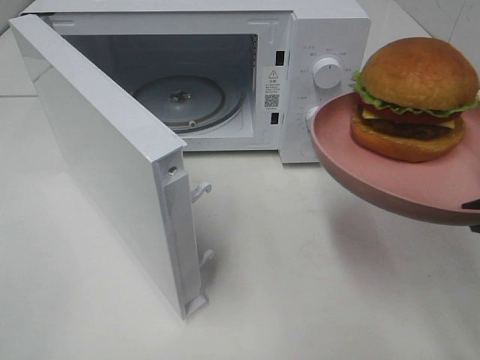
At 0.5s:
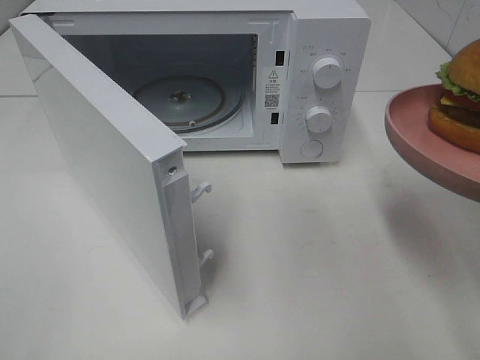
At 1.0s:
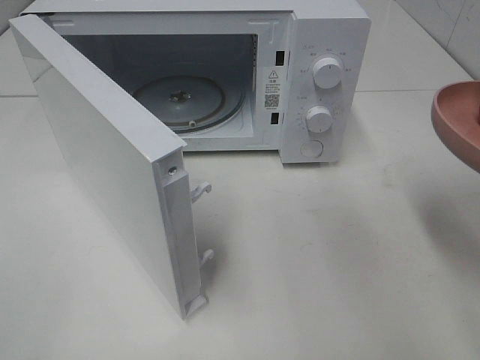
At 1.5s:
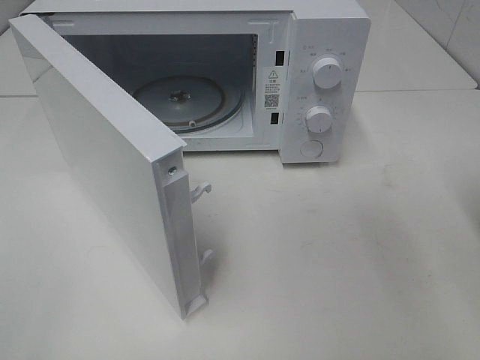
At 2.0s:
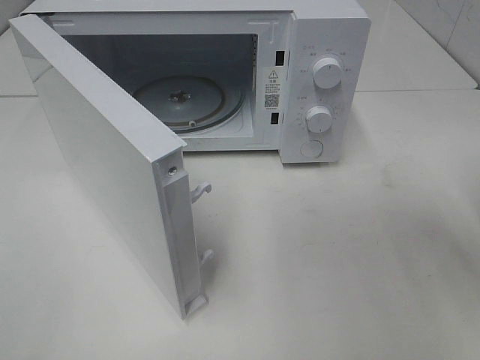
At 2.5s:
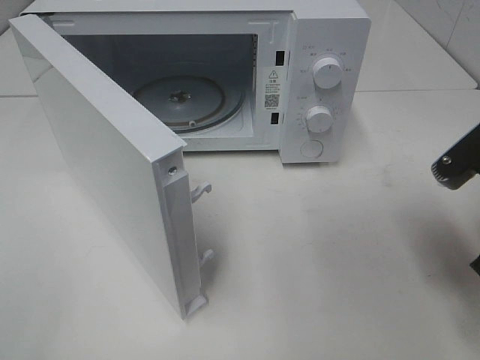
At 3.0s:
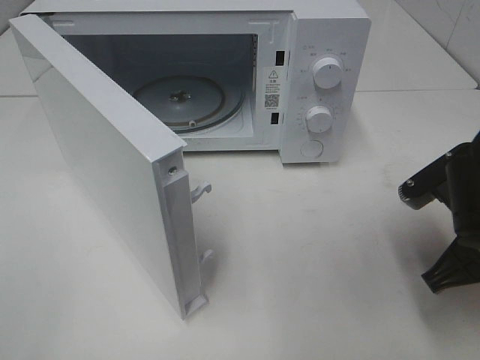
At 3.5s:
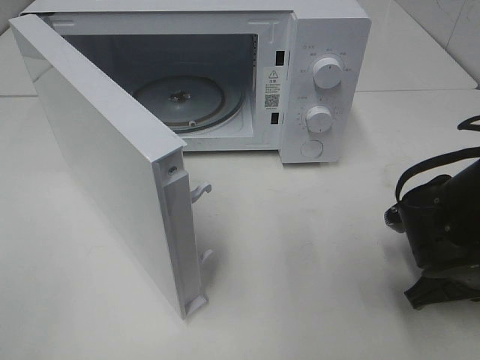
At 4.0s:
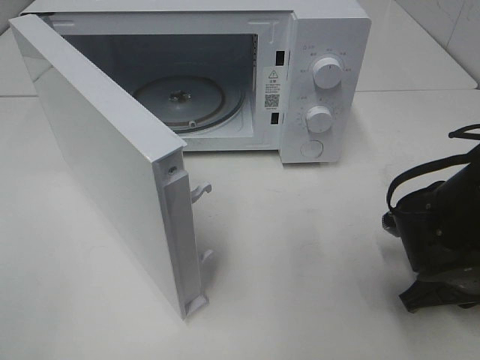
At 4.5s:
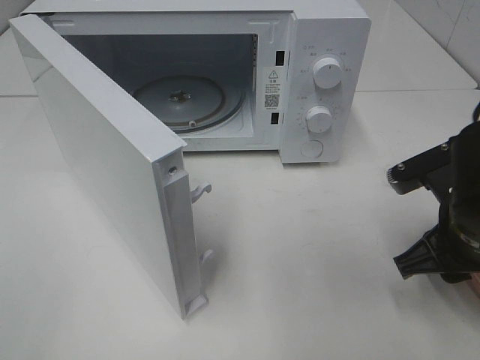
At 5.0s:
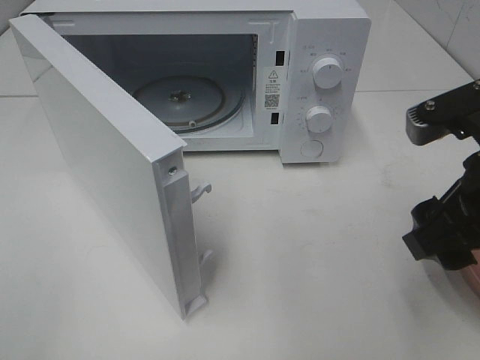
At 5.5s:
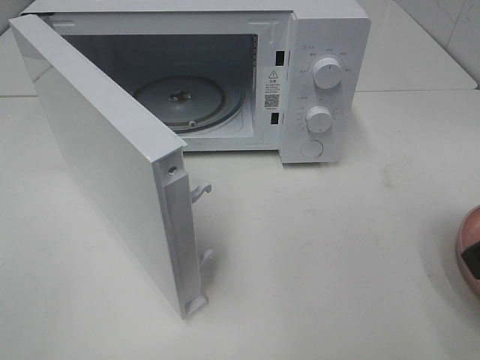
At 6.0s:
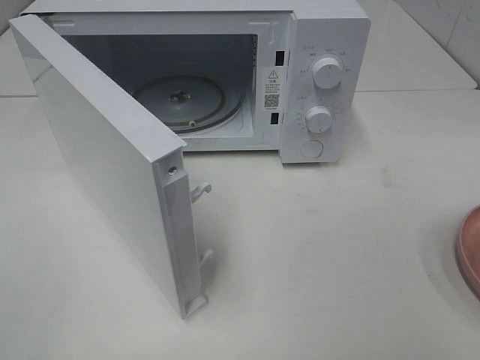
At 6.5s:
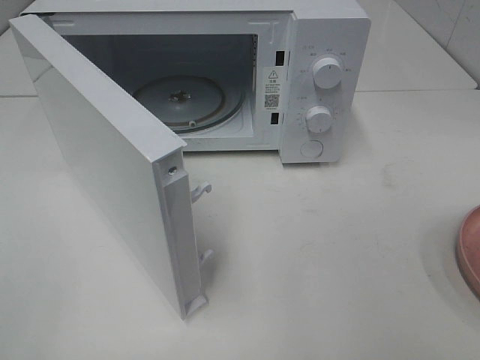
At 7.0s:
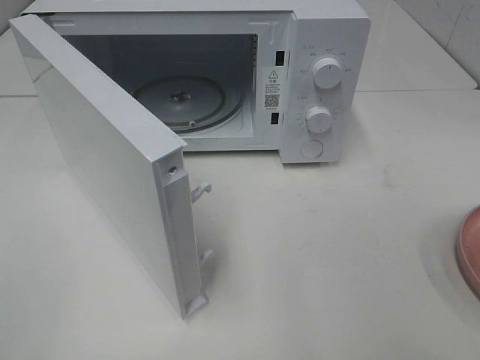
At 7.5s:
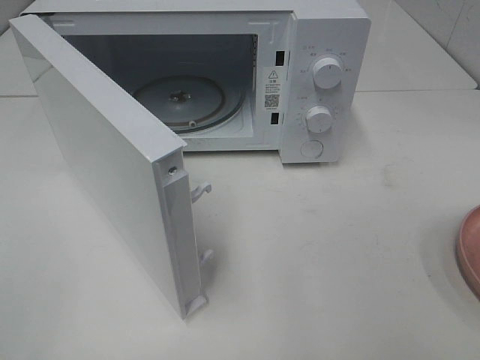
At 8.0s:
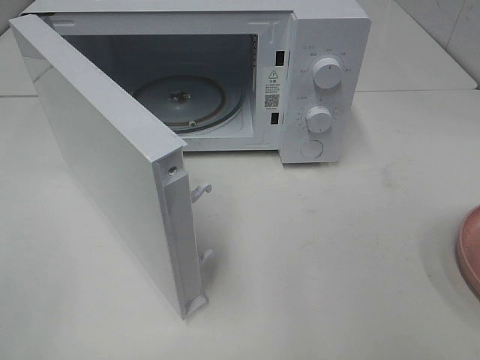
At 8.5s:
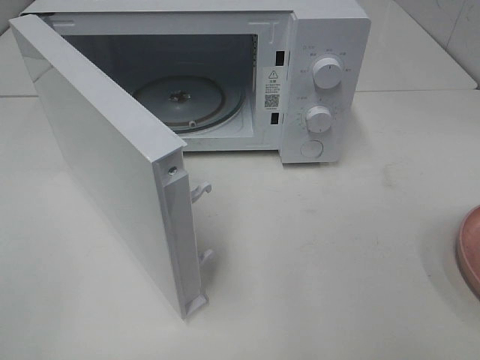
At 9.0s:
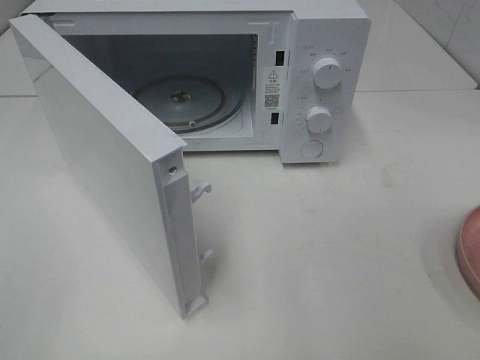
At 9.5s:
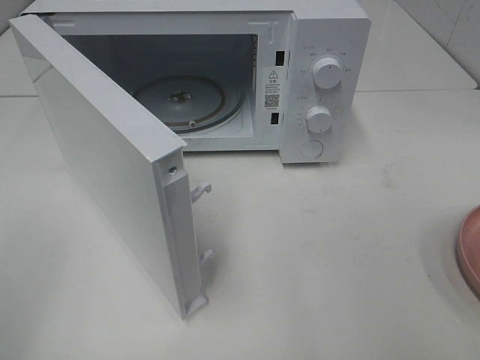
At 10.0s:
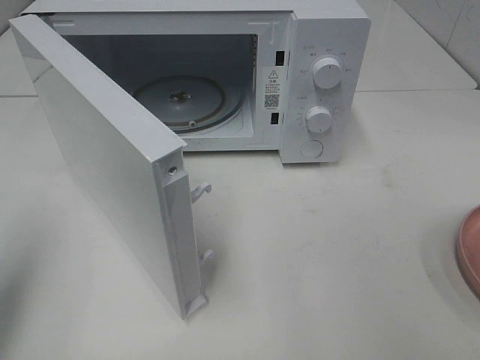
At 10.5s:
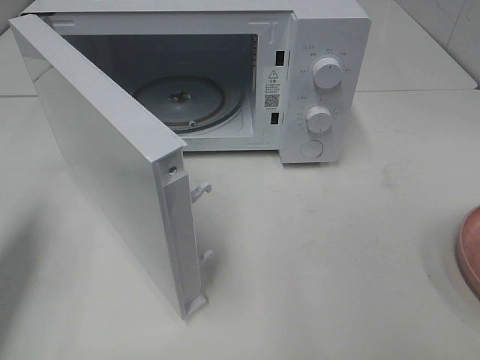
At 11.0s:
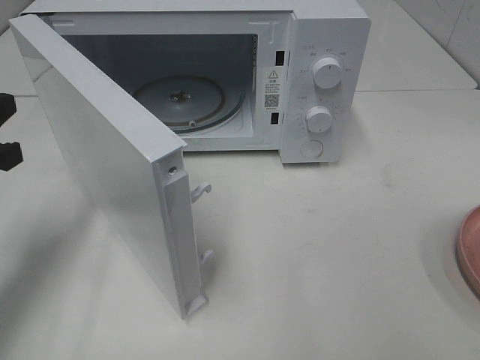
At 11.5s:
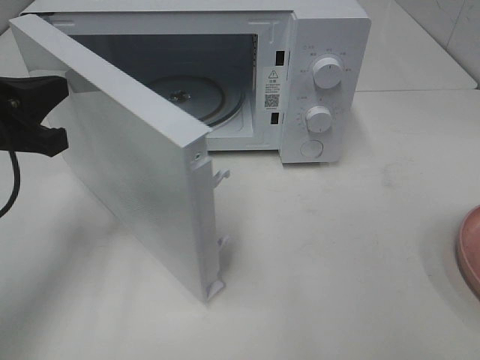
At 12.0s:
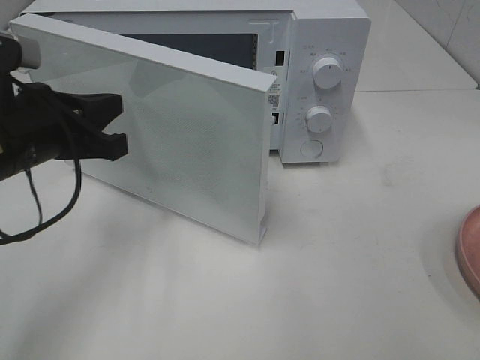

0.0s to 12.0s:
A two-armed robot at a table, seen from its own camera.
Task of the whole recording: Heat the burger.
Step, 0.0s to 4.5s: Right hand: place the plate on the table.
2.0s to 4.0s: The right gripper is displaced downward by roughly 15 cm.
4.0s to 6.0s: The right gripper travels upward and backward by some 25 cm, and opens.
8.0s to 10.0s: The left gripper shifts about 15 cm forward, and closes its fingers.
10.0s to 12.0s: The left gripper travels to the right, forward and downward by some 20 cm.

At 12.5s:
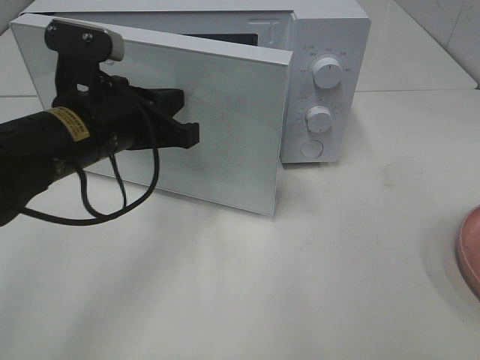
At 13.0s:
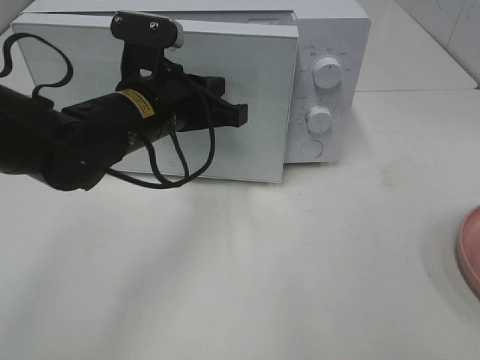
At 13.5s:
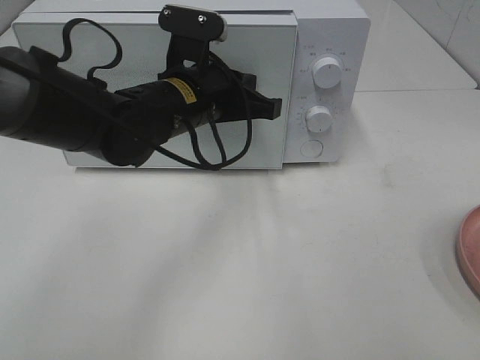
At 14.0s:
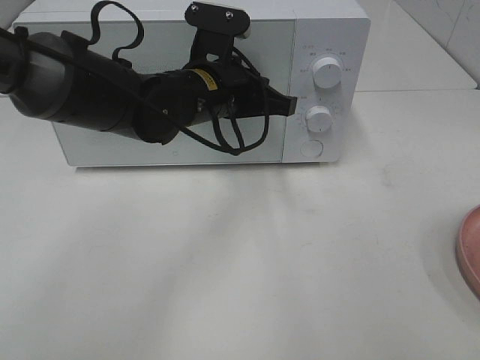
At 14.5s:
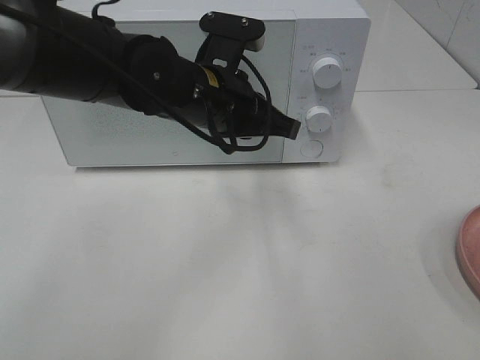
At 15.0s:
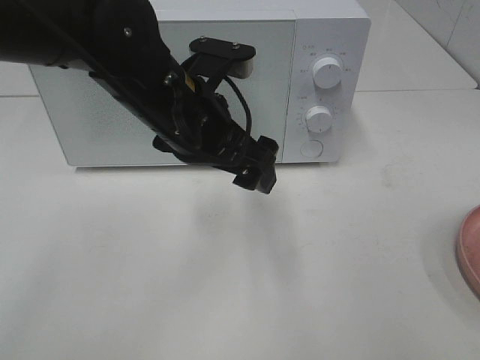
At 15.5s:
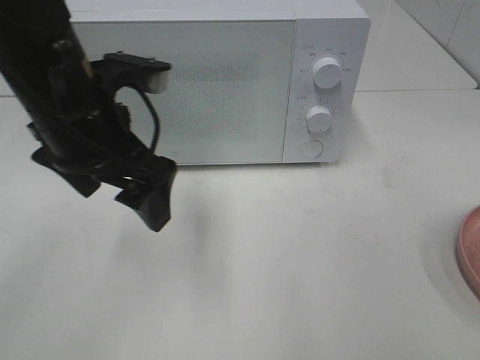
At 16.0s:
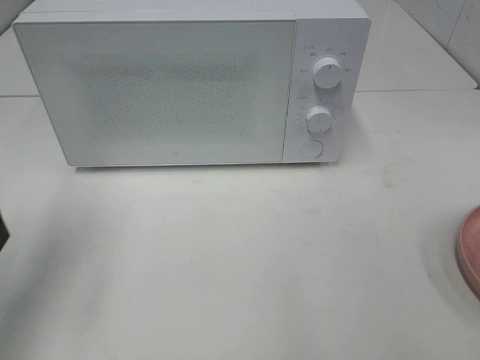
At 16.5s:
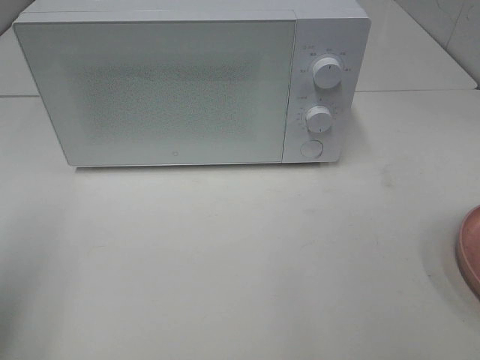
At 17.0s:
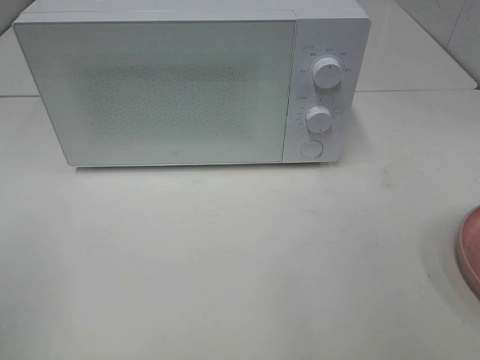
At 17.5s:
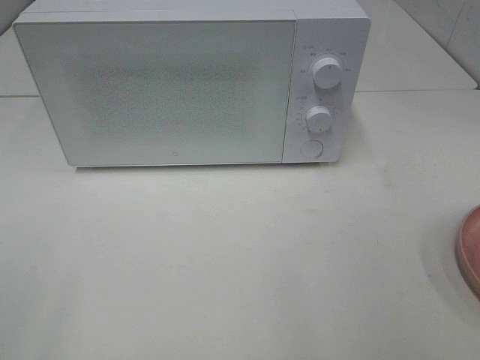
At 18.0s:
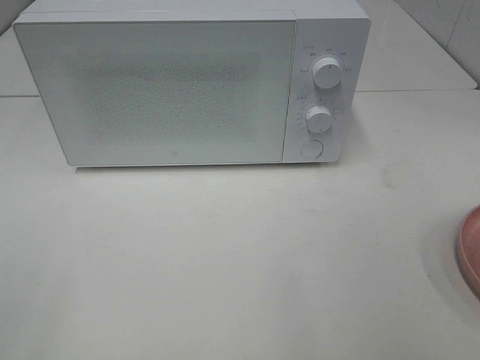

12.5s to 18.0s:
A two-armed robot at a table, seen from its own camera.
Task of the whole recording: Heat the burger.
Step, 12.5s to 14.5s: Left hand: close the microwave door.
12.5s to 14.5s: The left gripper goes about 10 cm to the right.
14.5s to 16.0s: The left gripper goes roughly 30 cm to the left and backward, and opens.
16.0s to 18.0s: The left gripper moves backward, roughly 20 cm.

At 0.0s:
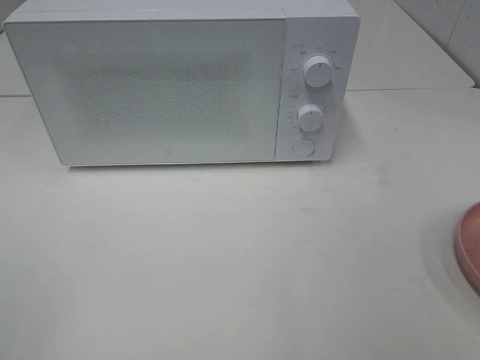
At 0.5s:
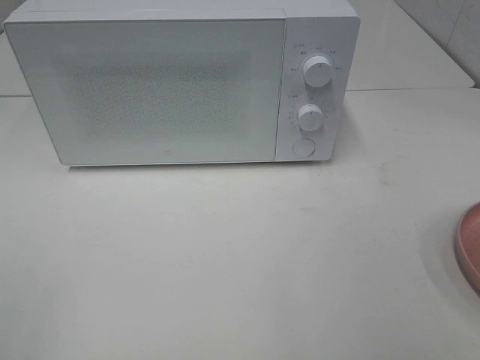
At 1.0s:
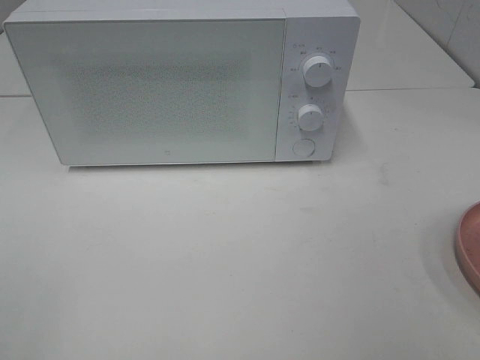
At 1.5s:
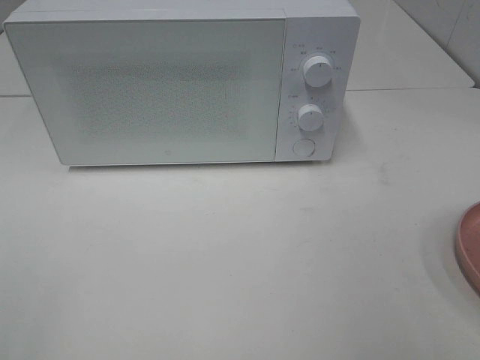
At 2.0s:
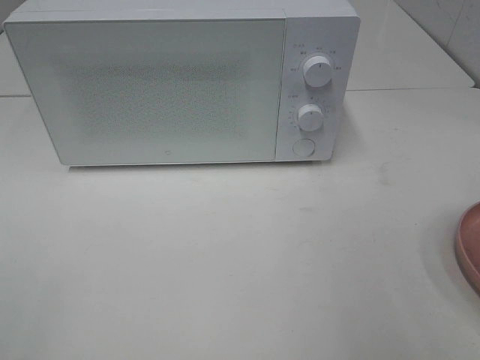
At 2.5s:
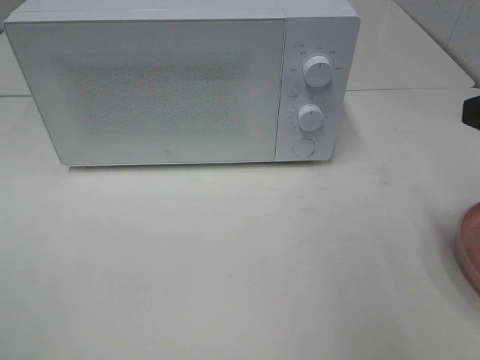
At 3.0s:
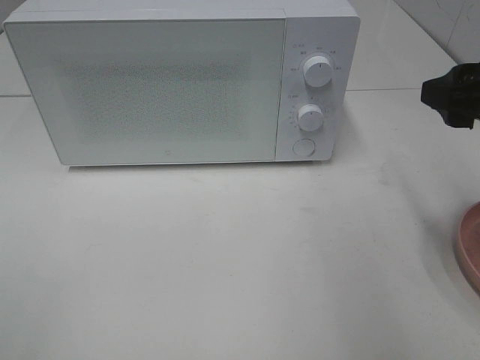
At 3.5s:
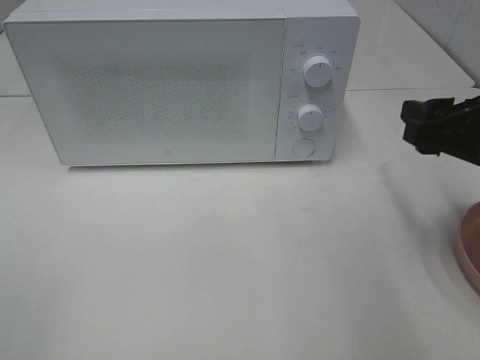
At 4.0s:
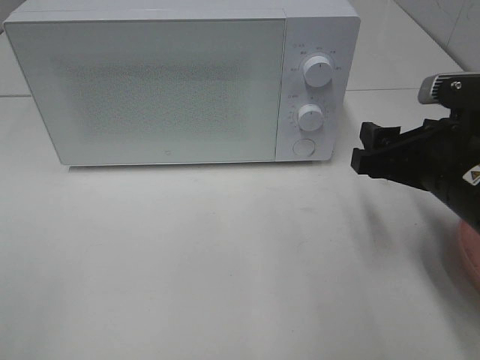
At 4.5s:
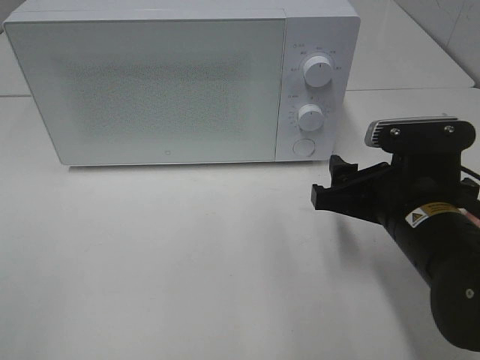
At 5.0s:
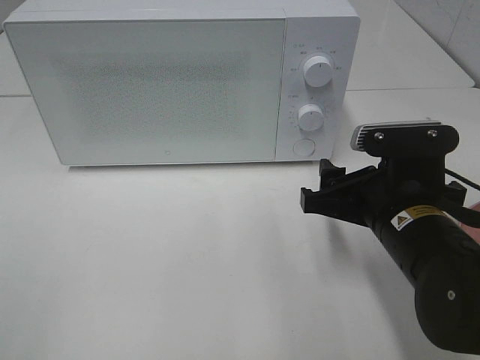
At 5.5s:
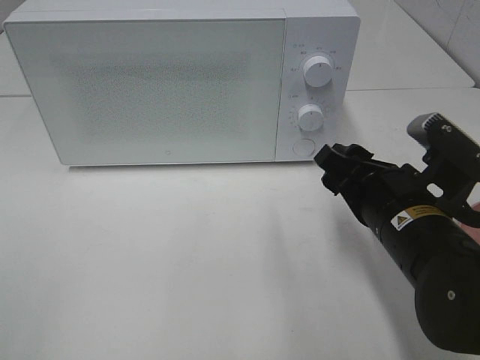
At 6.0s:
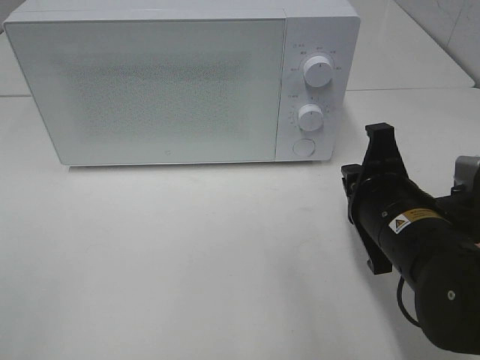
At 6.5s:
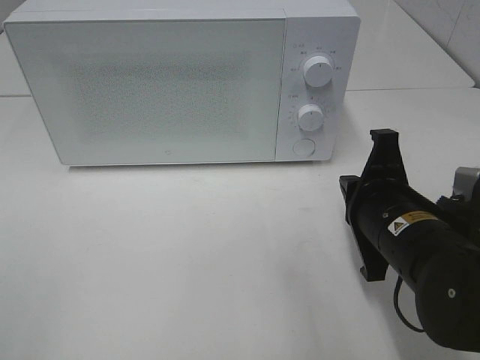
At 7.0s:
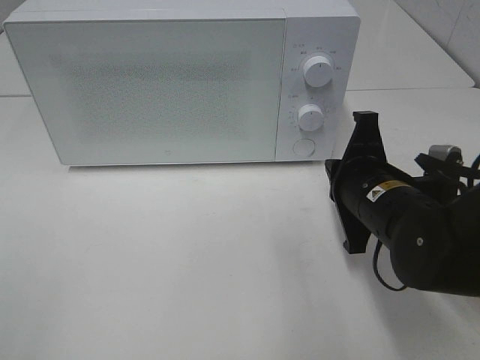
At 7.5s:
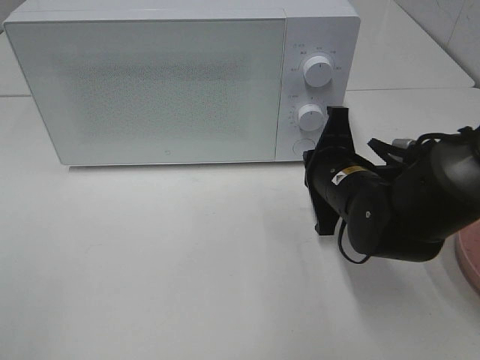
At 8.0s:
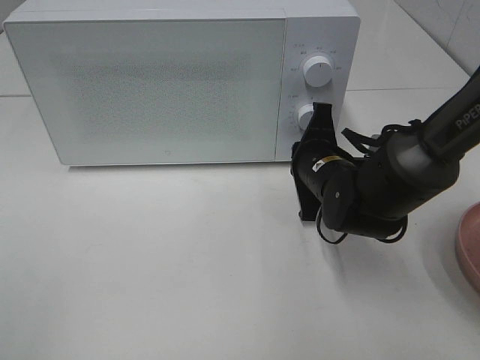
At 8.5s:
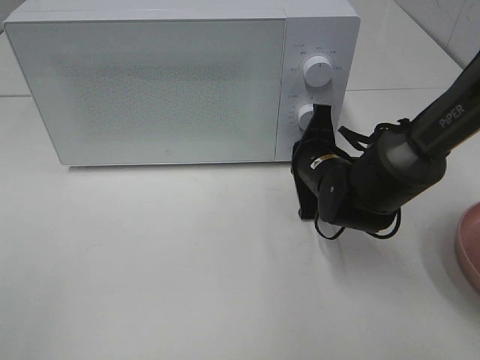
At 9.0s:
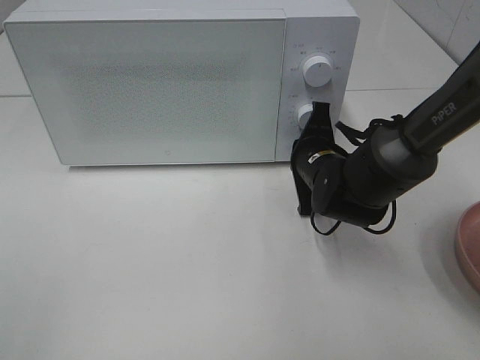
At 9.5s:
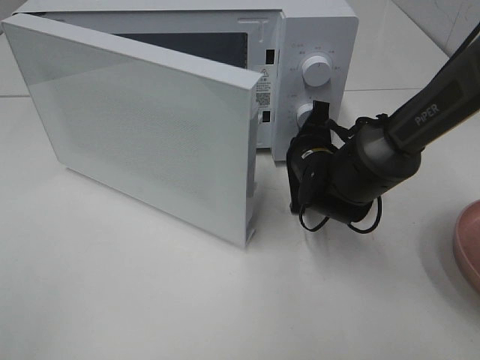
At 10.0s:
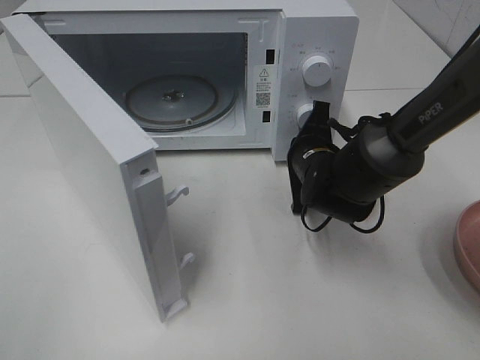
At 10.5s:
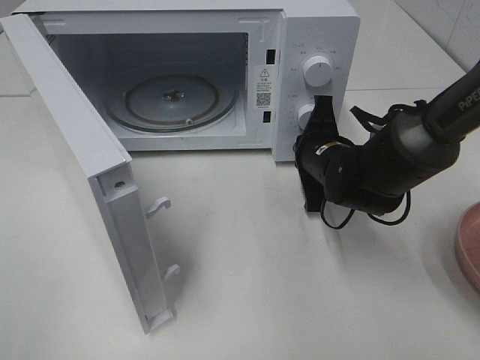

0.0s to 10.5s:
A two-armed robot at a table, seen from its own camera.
Task of the whole recording: Heat the burger.
2.0s to 4.0s: The right gripper shifts roughly 15 cm downward, forward and to the left.
4.0s to 6.5s: The right gripper shifts by some 5 cm, and closes.
6.5s to 8.5s: The right gripper is displaced forward by some 15 cm.
